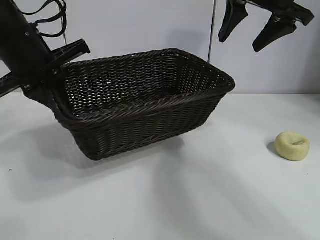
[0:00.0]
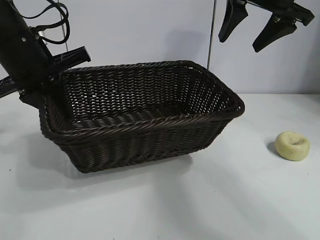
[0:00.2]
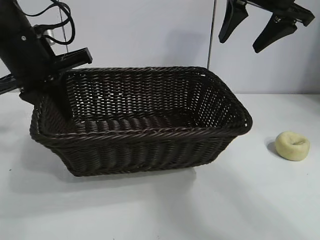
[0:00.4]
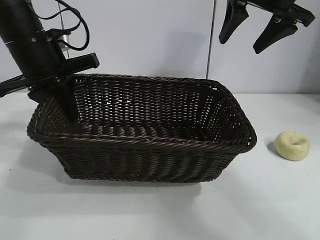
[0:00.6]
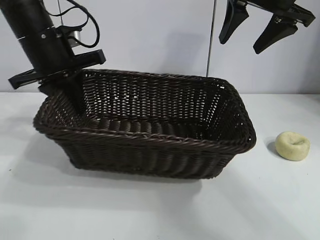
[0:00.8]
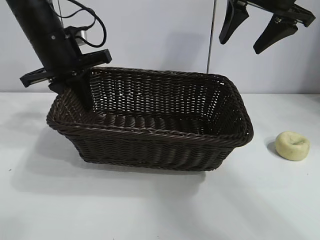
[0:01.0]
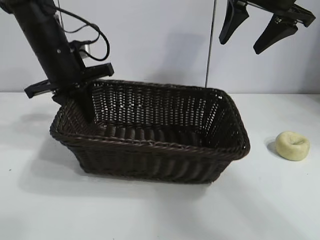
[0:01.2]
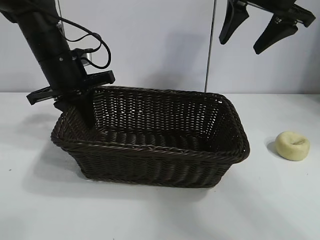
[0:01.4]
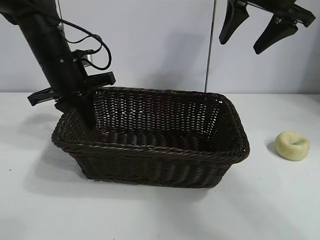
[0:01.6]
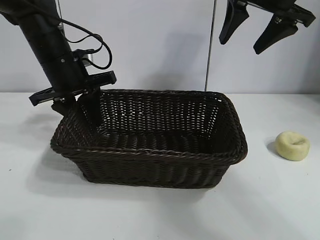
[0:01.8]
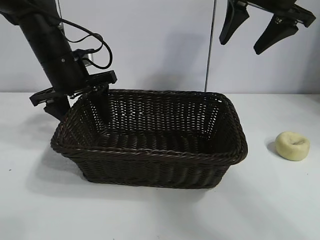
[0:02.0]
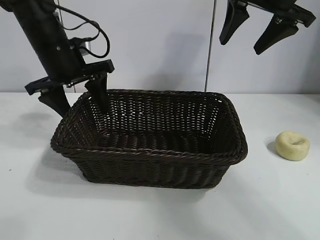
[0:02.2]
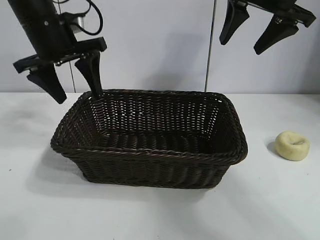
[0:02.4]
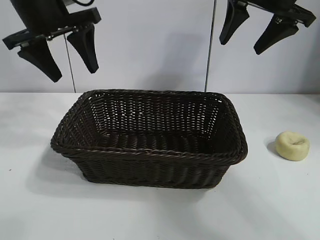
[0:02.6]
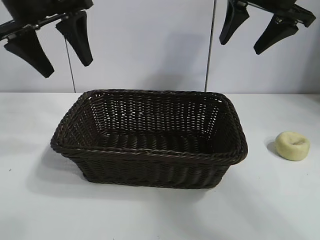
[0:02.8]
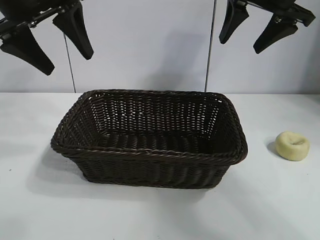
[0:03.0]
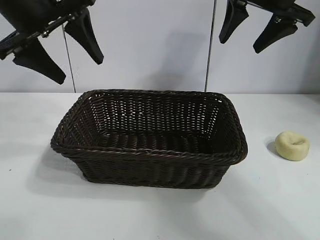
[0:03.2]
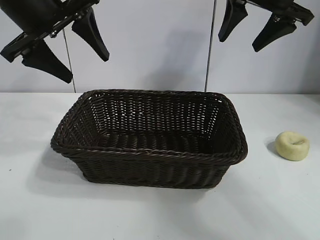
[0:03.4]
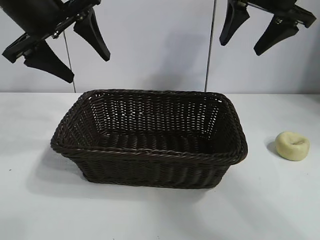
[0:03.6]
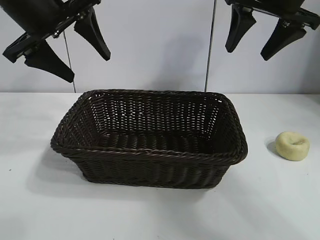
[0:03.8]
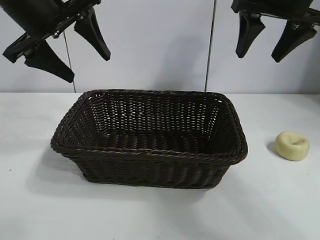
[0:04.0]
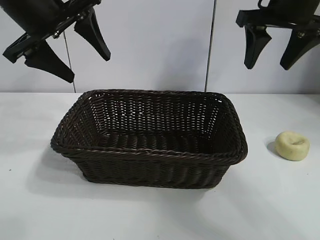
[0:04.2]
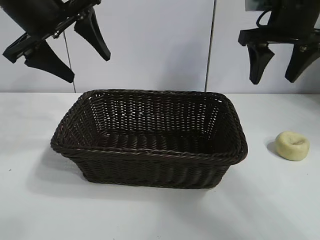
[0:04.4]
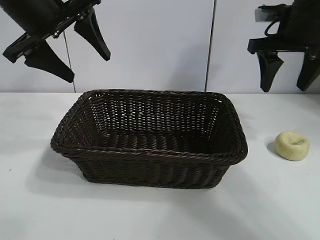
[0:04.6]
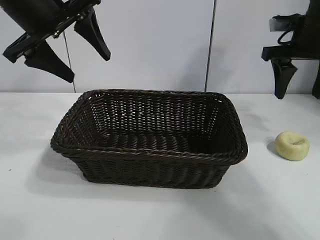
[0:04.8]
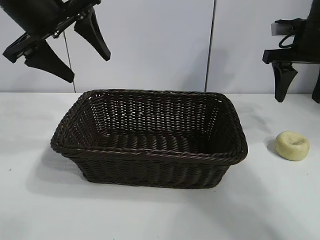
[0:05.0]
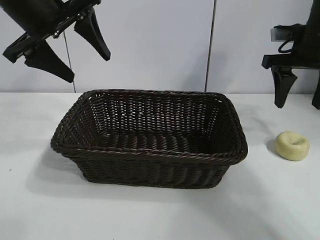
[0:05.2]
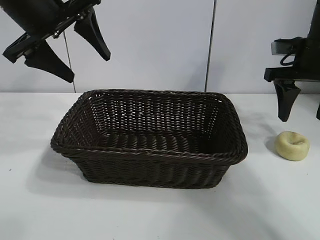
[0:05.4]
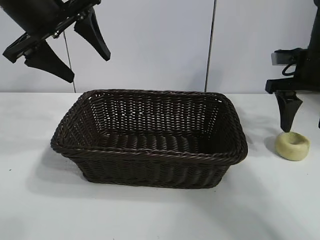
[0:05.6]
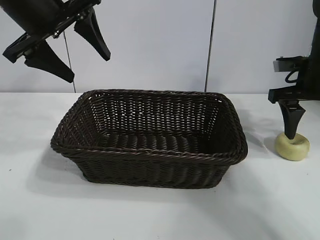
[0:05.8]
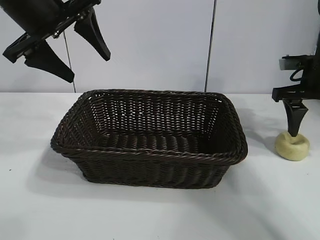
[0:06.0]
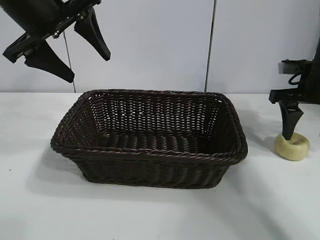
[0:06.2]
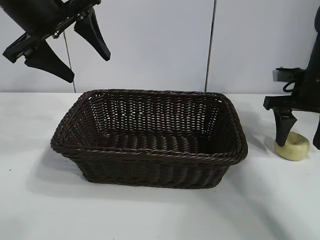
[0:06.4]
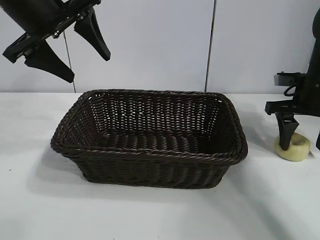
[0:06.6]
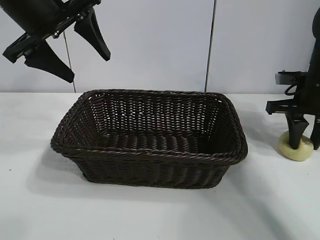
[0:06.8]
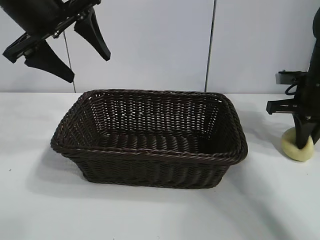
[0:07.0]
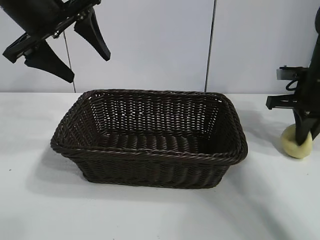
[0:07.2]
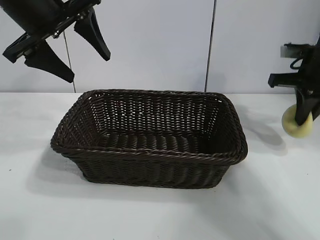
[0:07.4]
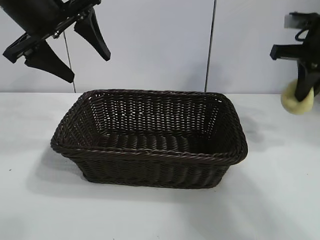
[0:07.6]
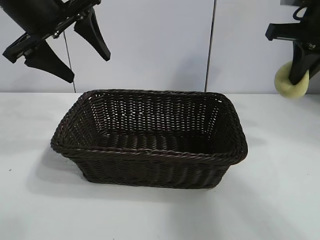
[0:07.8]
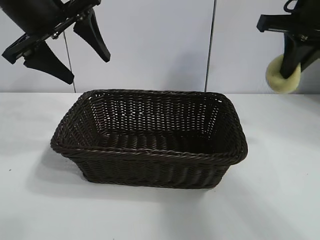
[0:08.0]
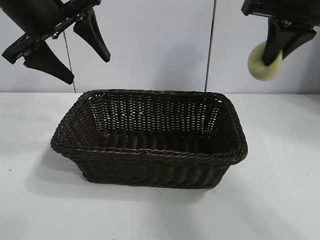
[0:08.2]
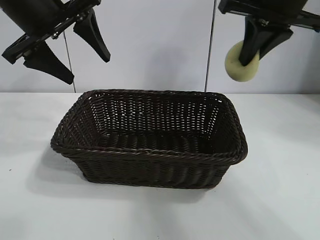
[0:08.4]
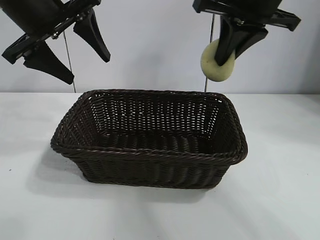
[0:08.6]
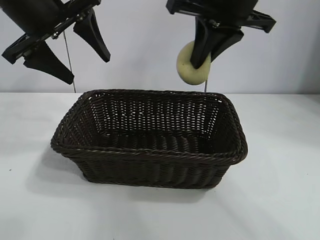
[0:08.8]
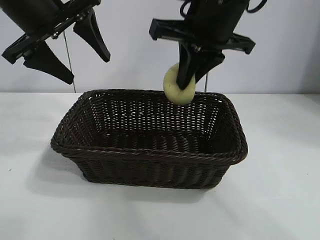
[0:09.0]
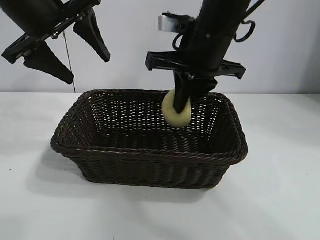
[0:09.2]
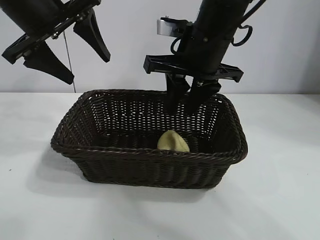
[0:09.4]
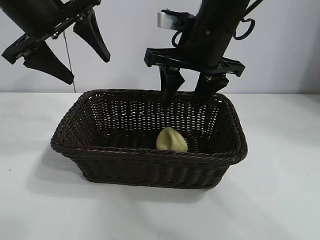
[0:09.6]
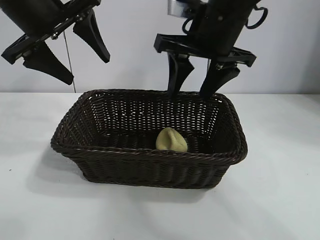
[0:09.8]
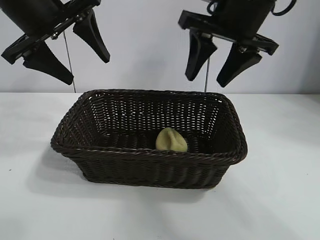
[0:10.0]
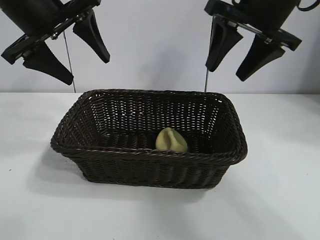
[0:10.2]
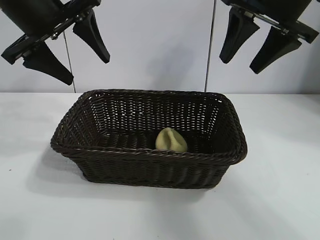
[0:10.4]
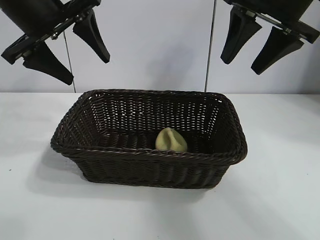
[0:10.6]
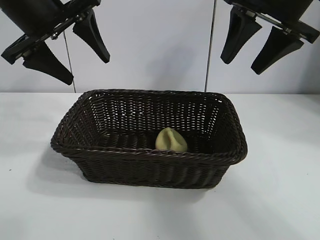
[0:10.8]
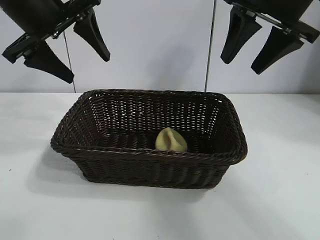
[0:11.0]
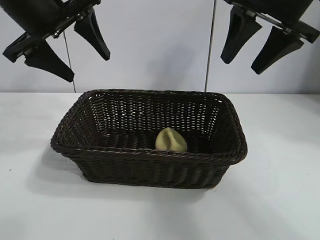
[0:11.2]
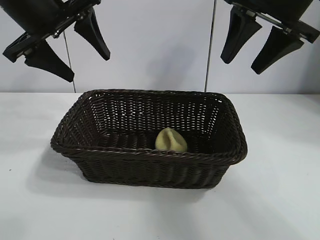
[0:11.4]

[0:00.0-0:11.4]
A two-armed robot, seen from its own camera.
Task of the whole recording: pick up the egg yolk pastry and put it into the basket.
Step, 0:00.0 to 0:02.0: Place the basket in the center of view with left gripper.
Step, 0:02.2 to 0:07.0: Grasp egg yolk pastry with right gripper.
Step, 0:07.2 to 0:09.6: Place the egg yolk pastry in the basket with right gripper.

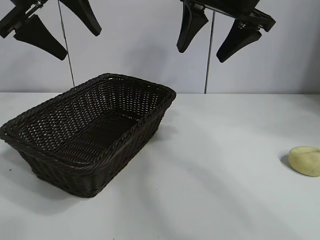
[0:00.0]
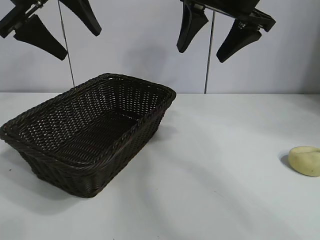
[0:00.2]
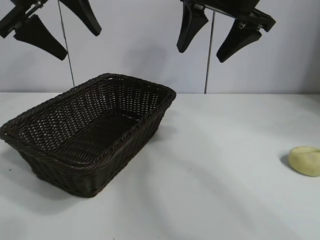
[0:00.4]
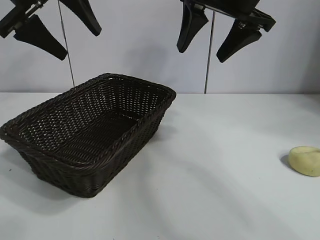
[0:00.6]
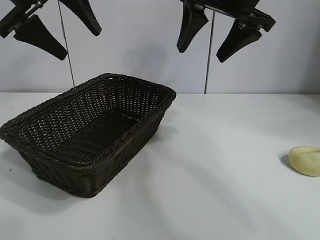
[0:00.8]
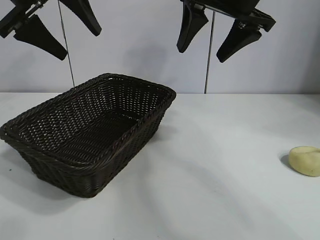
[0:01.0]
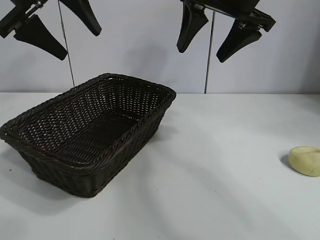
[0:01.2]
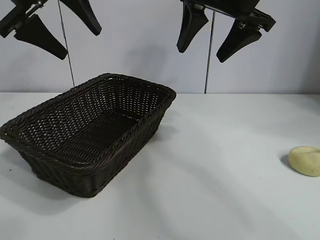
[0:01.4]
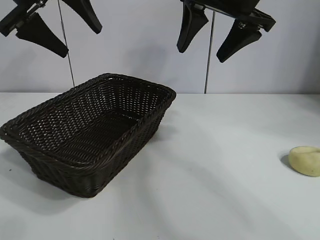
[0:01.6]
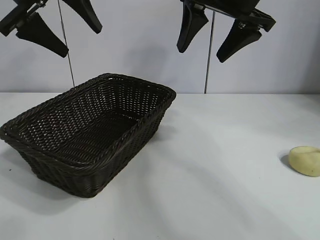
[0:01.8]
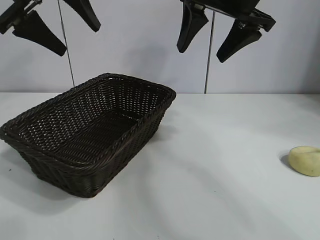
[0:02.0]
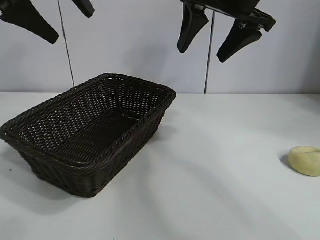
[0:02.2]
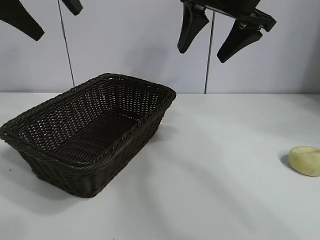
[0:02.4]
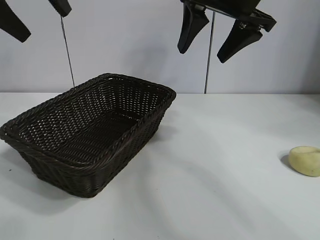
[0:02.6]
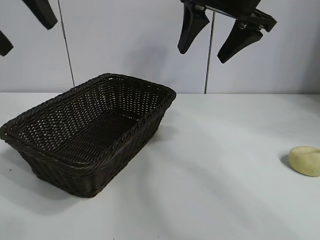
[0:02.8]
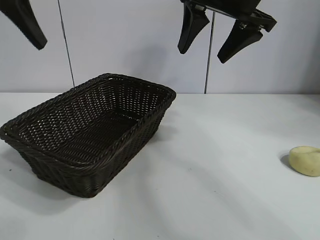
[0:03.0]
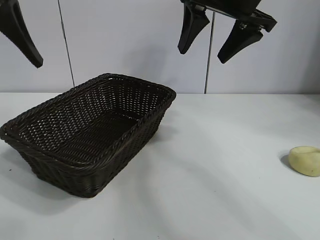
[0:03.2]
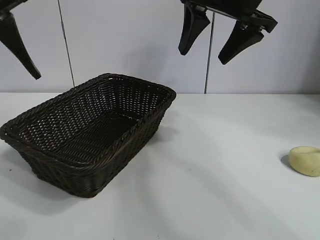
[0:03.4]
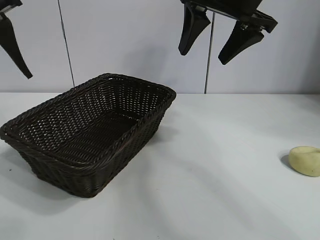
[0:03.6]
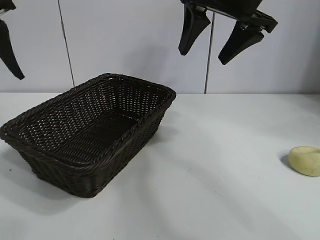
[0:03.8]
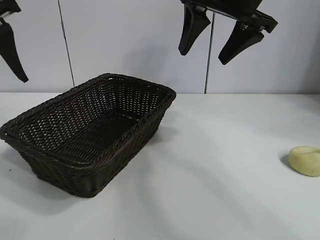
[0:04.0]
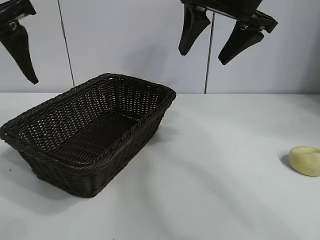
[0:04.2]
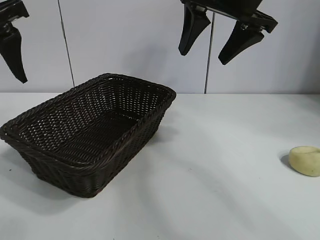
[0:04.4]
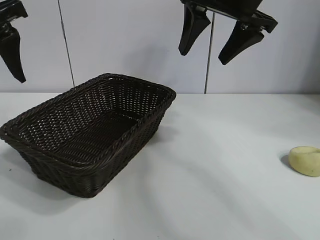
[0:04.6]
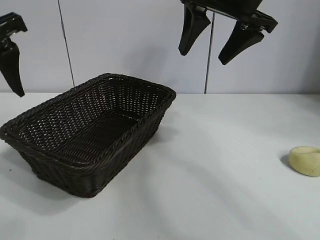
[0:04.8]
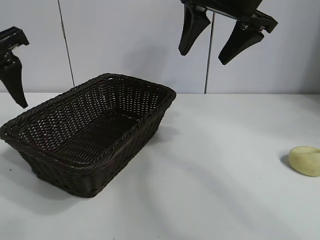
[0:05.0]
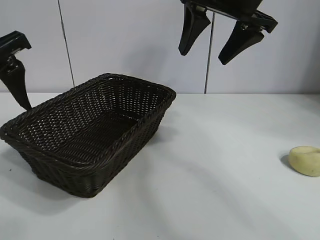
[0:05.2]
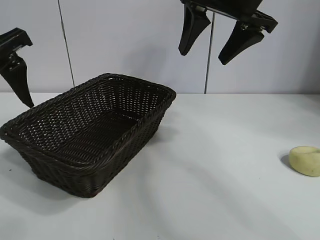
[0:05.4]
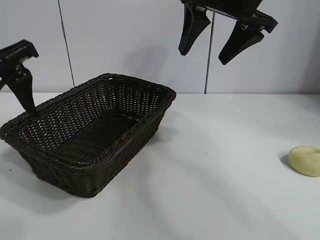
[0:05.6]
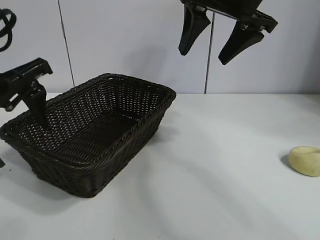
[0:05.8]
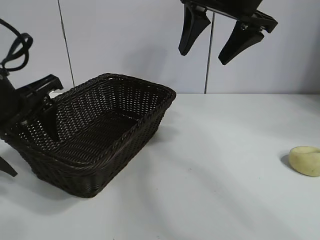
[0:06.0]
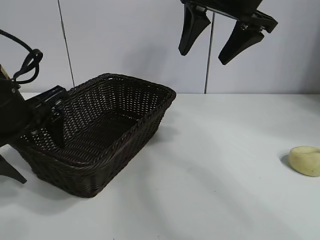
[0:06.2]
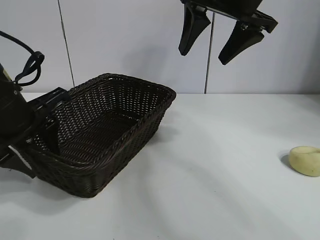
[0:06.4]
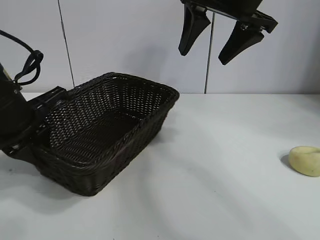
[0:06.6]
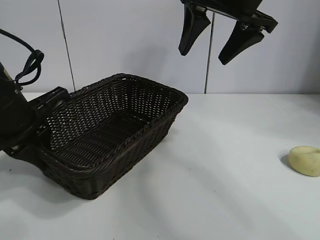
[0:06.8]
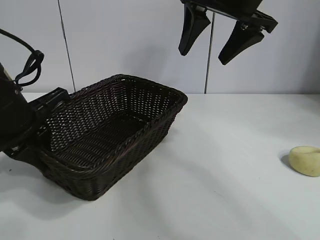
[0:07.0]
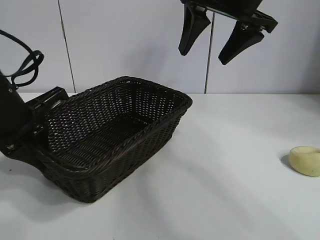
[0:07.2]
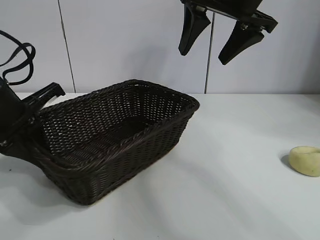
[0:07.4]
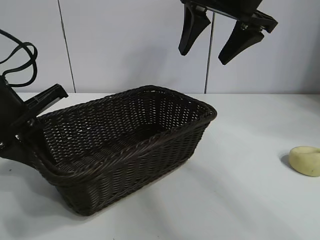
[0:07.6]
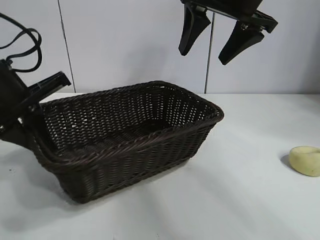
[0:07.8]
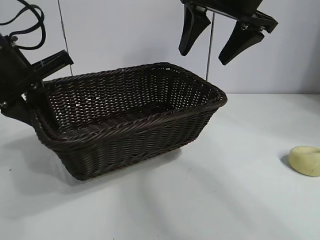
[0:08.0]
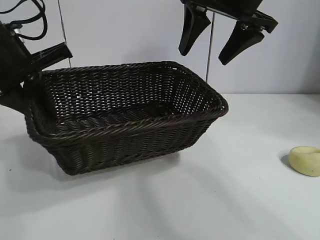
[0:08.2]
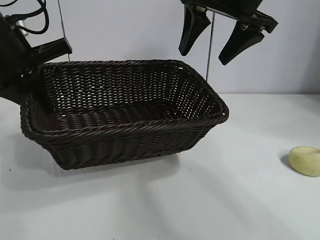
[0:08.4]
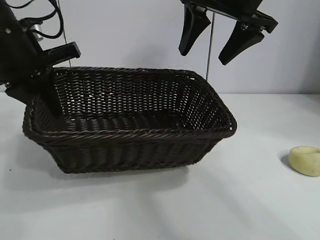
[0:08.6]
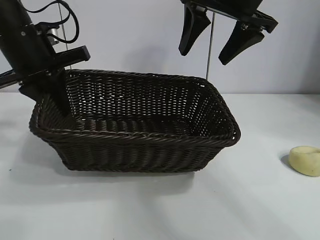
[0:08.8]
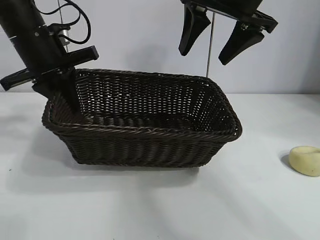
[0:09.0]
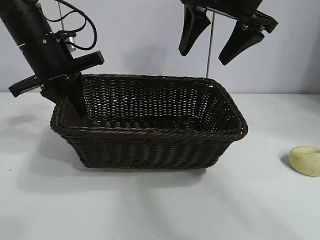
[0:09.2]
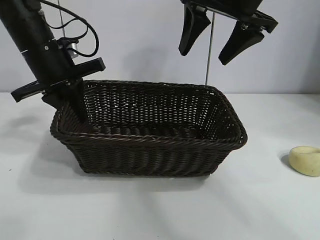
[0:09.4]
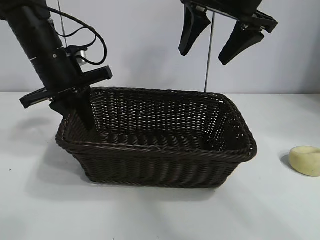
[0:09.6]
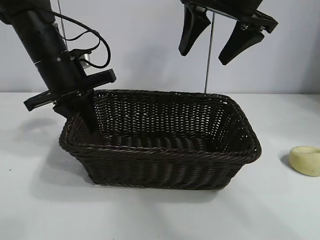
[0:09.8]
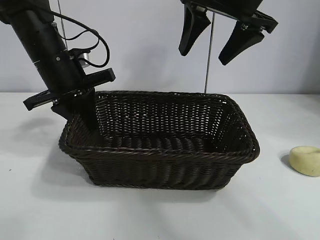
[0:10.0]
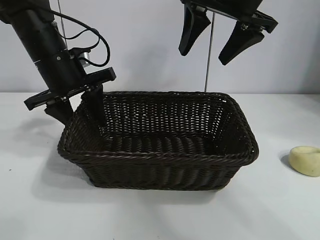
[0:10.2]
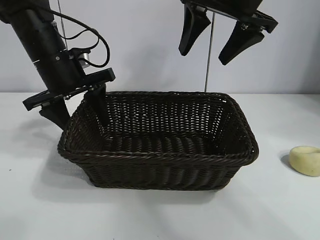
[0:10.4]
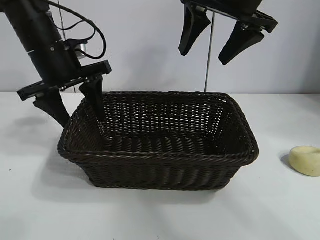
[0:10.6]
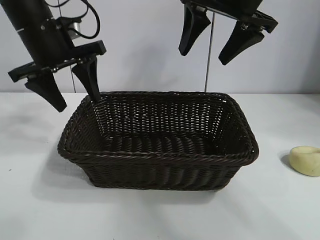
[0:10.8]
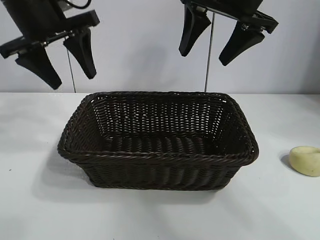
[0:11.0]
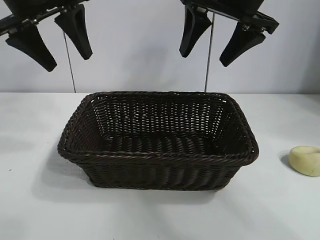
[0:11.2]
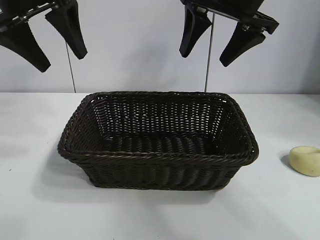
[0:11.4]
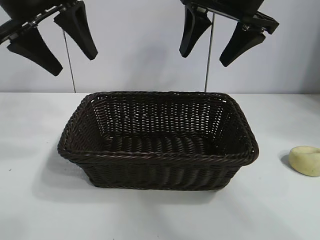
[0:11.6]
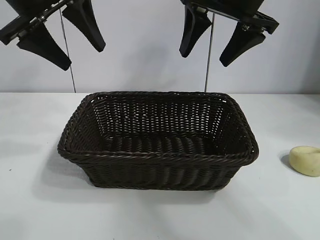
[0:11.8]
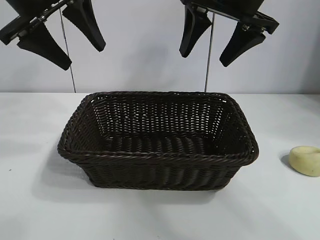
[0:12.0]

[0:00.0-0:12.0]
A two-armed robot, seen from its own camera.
Task of the whole recording: pick up the egg yolk pastry and put it into the basket.
Step, 0:02.0 to 0:06.6: Grasp the basket with left gripper.
Step, 0:06.8 to 0:10.4: Place the basket in the center of view with left gripper.
